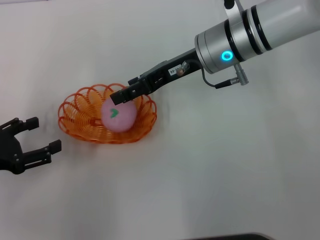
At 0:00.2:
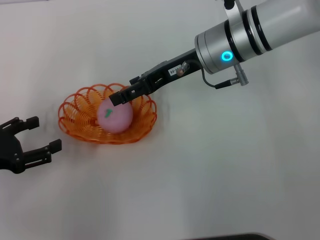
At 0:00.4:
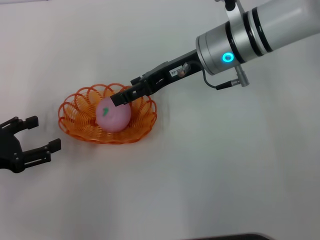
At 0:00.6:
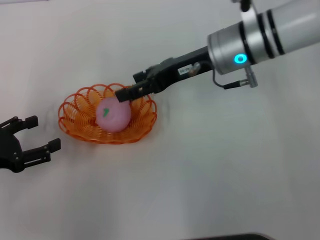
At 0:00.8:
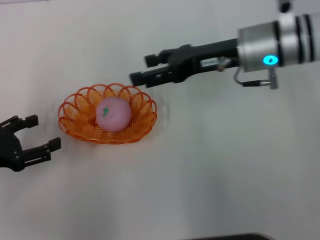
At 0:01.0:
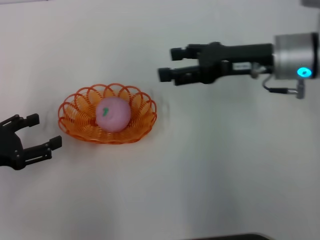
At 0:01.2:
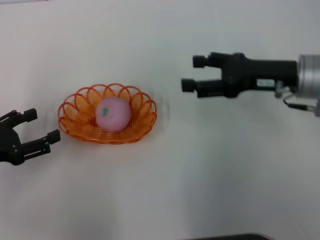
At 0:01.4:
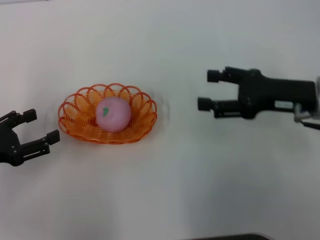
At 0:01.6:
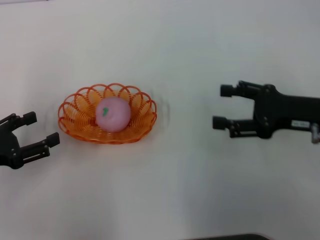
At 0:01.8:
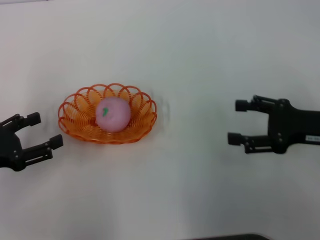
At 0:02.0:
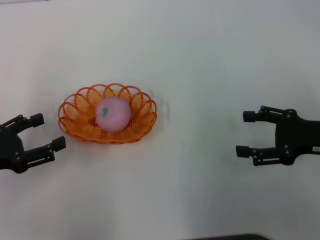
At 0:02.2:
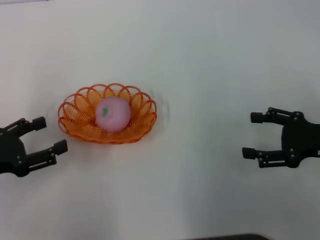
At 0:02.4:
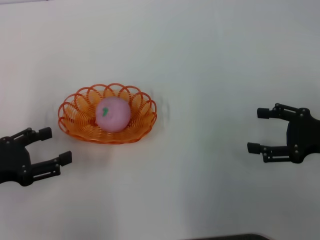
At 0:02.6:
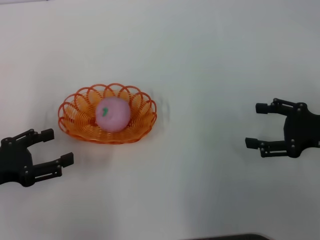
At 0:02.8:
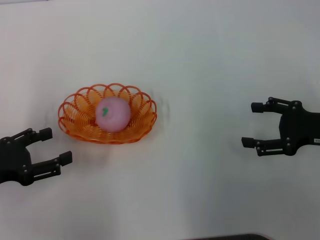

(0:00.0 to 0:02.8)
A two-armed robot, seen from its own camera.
0:00.0 - 0:01.4: The right gripper moves to the right and backward, some 15 cm, and opens.
0:01.4 - 0:02.8: The right gripper moves to the right, approximately 5 cm.

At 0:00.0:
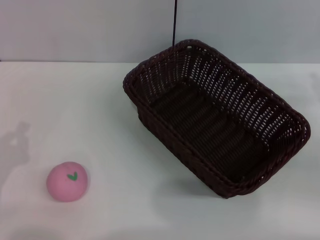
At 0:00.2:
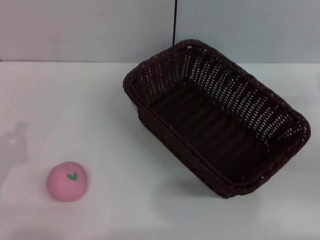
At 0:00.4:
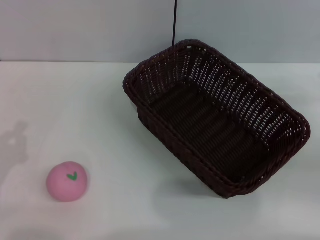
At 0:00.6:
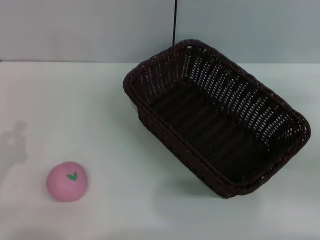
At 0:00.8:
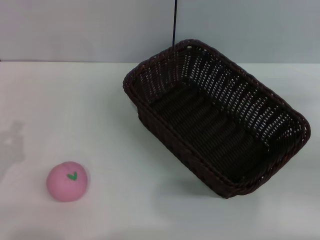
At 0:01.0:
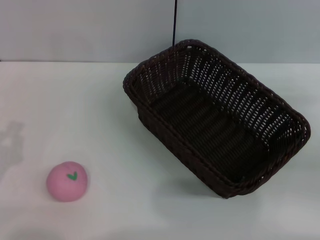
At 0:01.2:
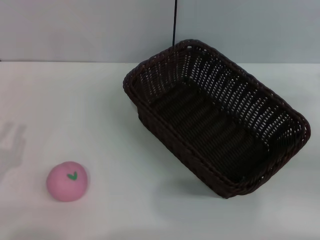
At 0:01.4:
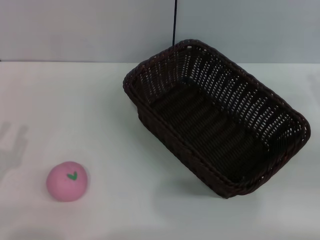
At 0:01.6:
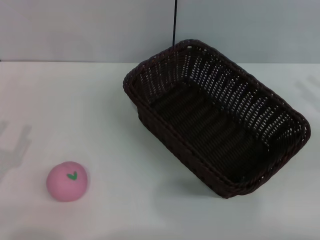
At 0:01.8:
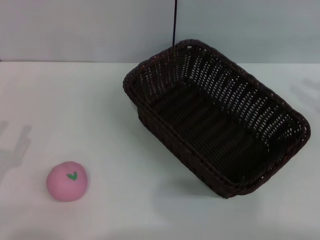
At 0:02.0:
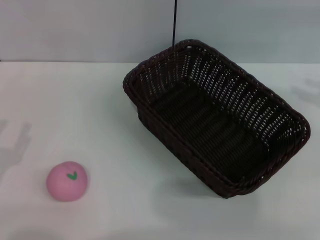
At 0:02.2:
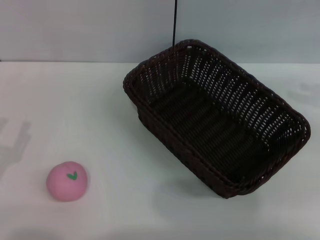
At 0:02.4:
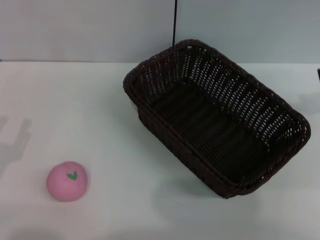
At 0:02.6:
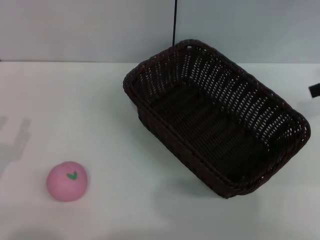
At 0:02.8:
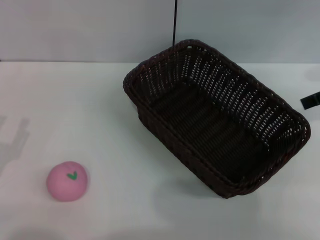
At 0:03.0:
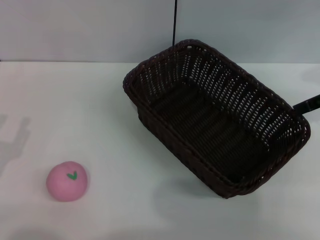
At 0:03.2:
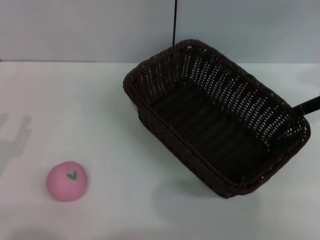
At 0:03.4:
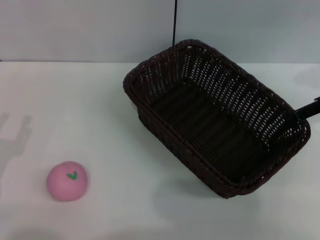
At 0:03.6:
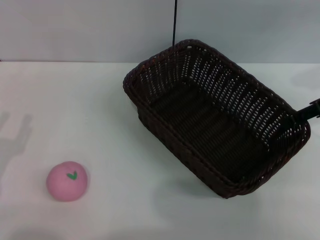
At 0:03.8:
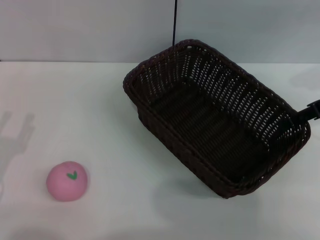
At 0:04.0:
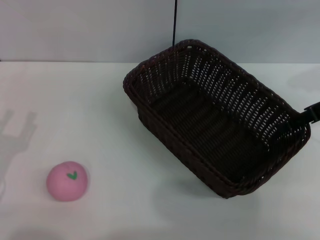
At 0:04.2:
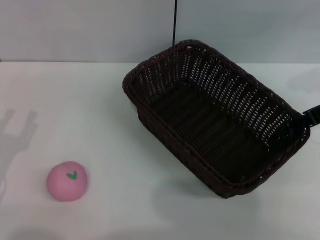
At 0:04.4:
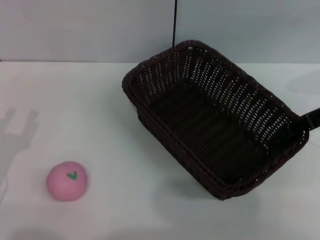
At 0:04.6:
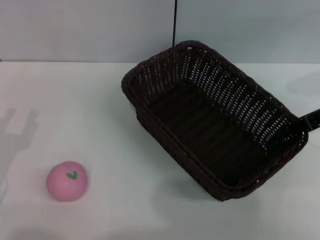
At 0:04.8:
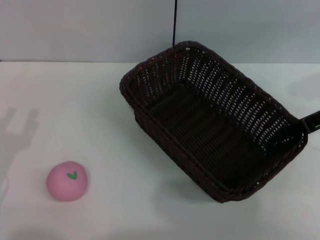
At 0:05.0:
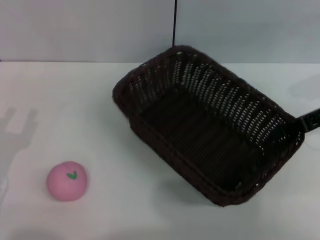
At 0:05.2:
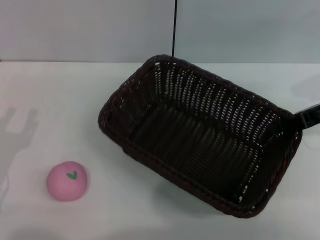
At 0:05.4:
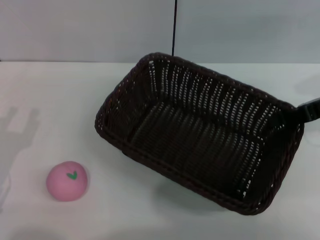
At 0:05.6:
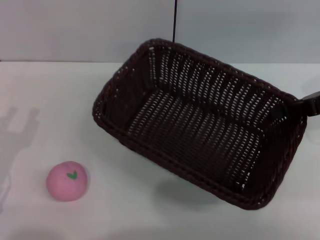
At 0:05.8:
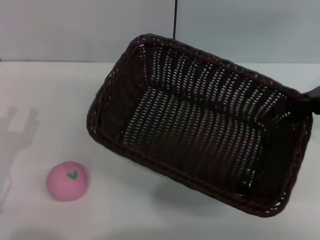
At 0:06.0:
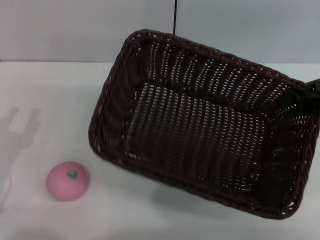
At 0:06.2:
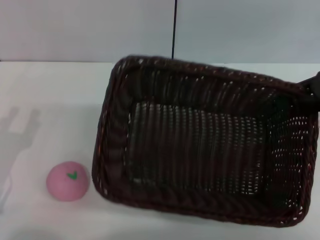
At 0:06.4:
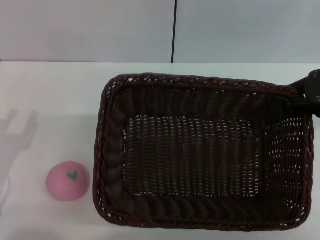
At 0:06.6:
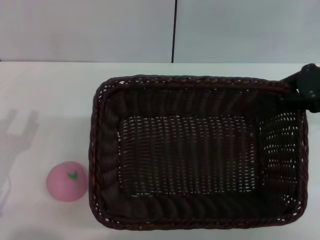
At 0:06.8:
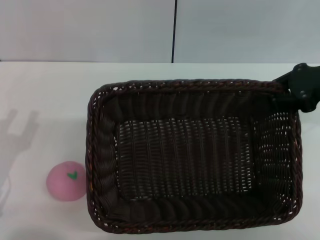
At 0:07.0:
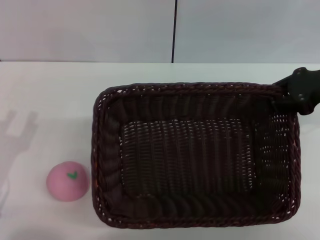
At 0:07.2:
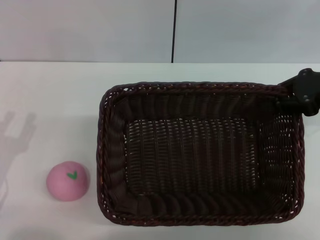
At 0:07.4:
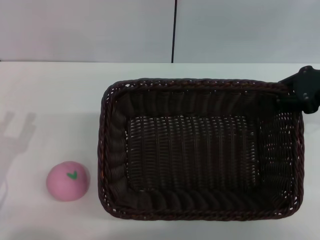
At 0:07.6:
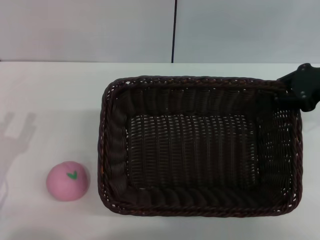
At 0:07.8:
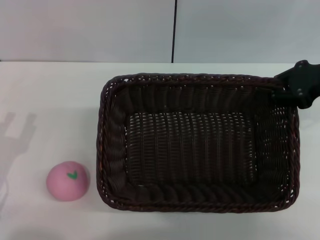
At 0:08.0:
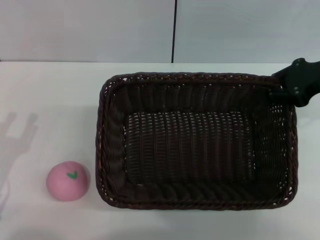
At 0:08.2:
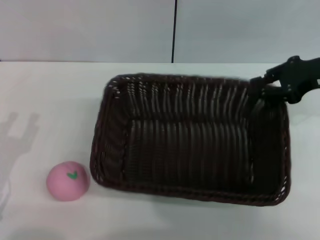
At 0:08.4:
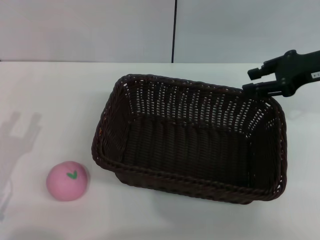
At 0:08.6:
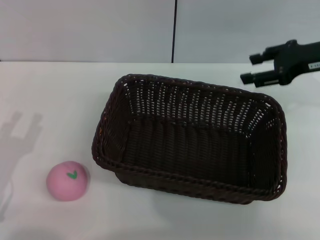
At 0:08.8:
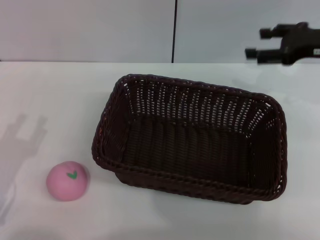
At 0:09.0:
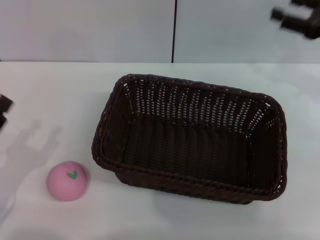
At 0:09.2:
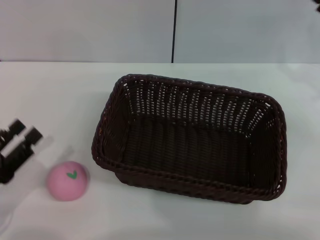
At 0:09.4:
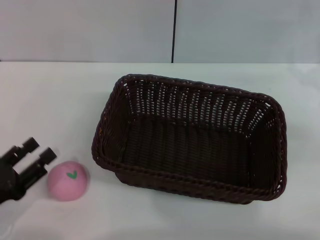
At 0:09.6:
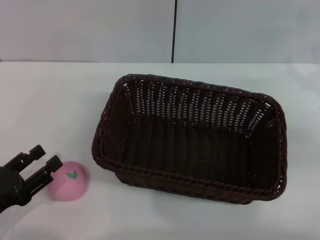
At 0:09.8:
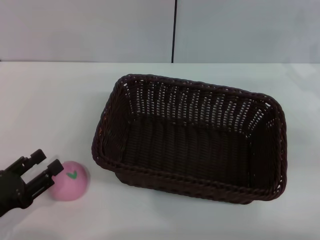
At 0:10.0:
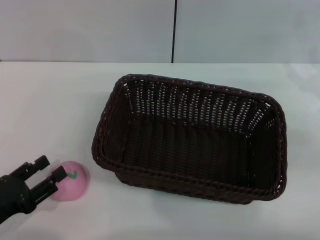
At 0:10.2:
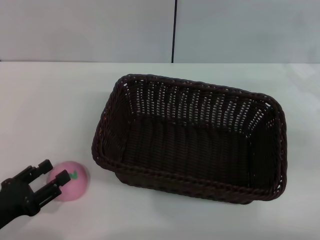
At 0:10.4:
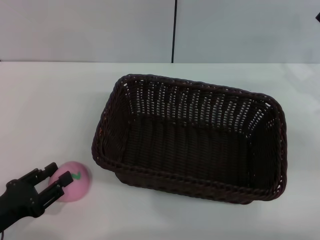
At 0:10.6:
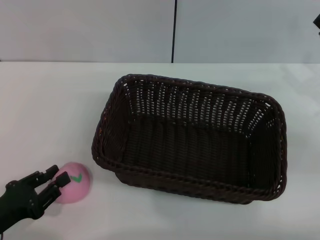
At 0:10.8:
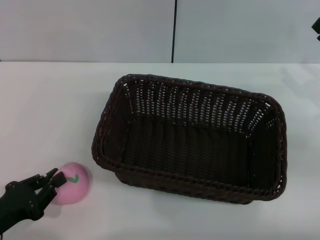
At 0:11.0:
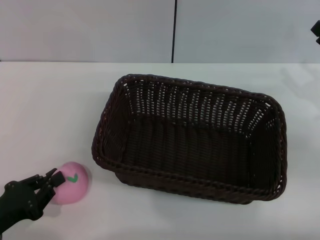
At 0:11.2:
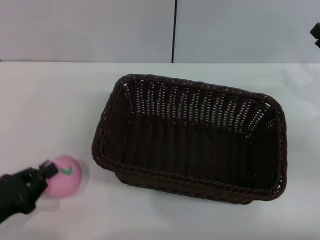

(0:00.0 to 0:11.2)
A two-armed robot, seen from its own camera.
Step, 0:00.0 - 0:05.0: Pick up the dark basket with the right gripper.
Step, 0:05.2 - 0:08.6: Place the dark basket in the center of view with the right gripper.
0:03.2 - 0:04.8: The right gripper closes its fingers.
0:06.4 - 0:08.0: The grippers stay close to where they were, moving slightly.
0:08.0 - 0:09.6: The right gripper goes some 10 cm downward, to the right and backward, and opens its fingers.
0:09.6 - 0:11.2: The left gripper closes up.

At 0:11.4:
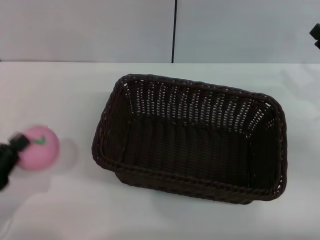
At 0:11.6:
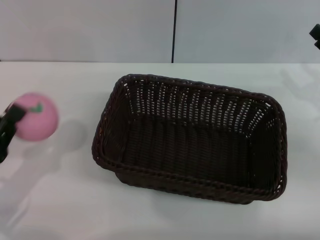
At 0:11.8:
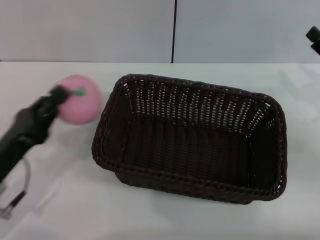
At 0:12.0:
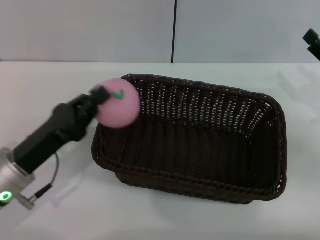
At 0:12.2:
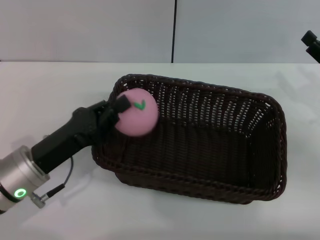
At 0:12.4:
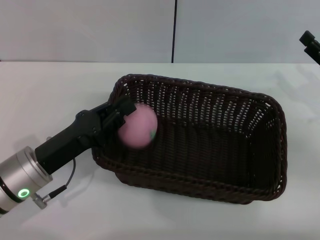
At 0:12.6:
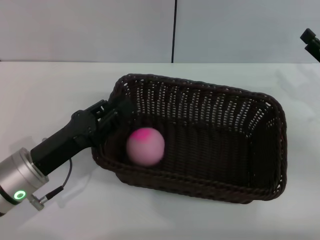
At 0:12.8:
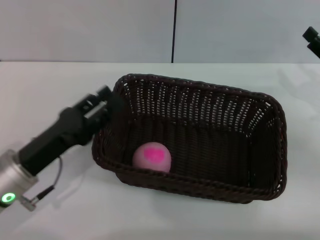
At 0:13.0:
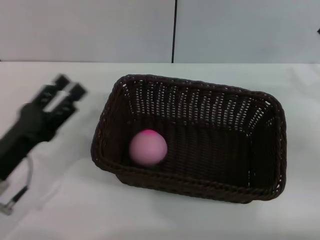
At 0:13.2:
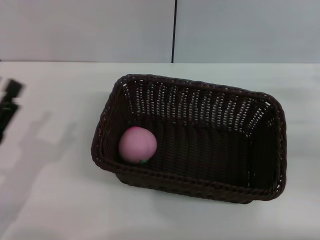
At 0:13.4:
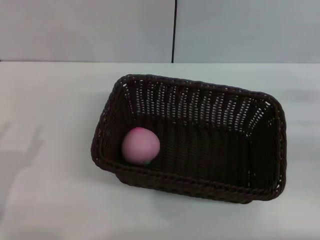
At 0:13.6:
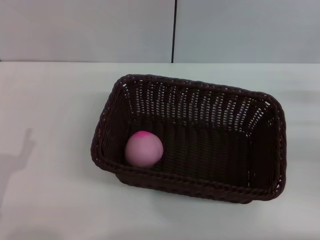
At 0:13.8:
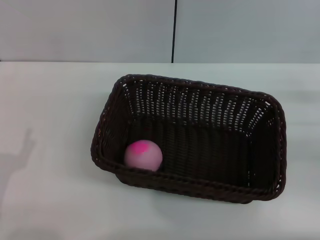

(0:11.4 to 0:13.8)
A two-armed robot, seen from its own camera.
Step, 0:11.6 - 0:12.8: Place the peach into the basket with the left gripper.
0:11.4 - 0:12.6: The left gripper goes roughly 15 cm to the right and forward.
0:12.6 - 0:13.8: The right gripper shifts by roughly 5 cm; the left gripper shifts about 10 cm backward and to the left, and opens up.
